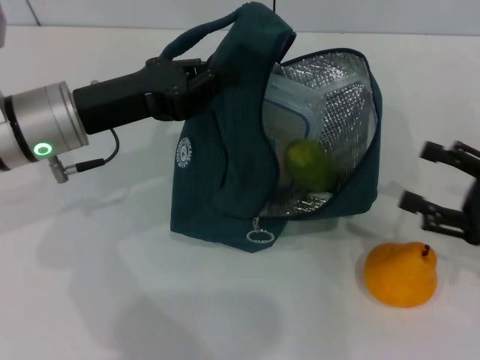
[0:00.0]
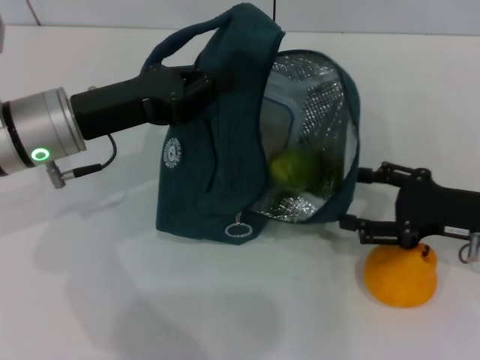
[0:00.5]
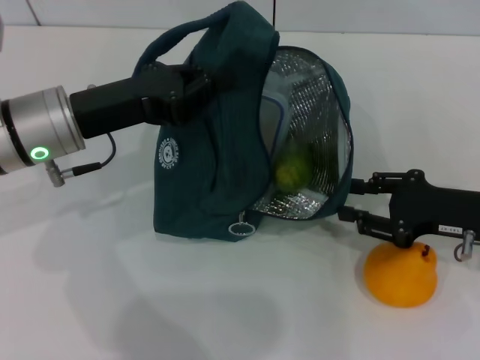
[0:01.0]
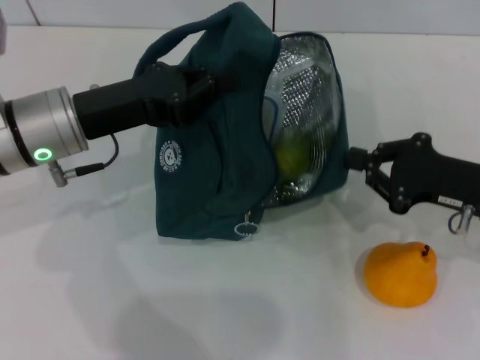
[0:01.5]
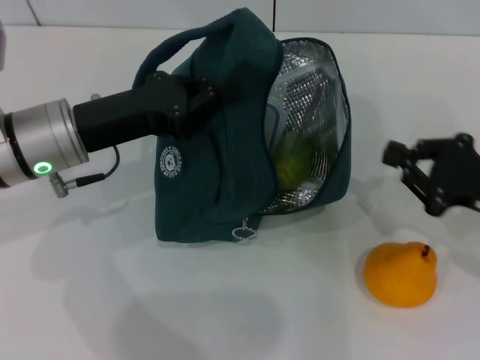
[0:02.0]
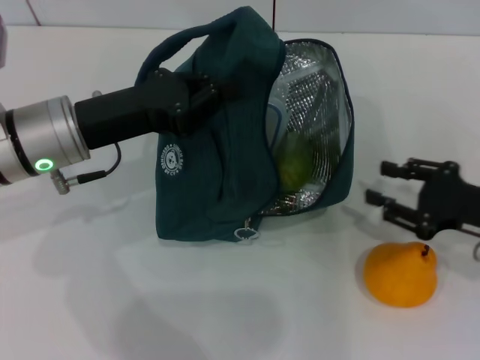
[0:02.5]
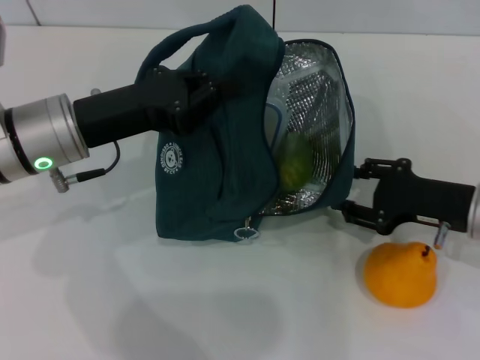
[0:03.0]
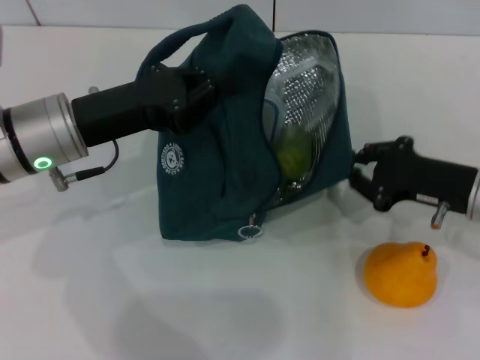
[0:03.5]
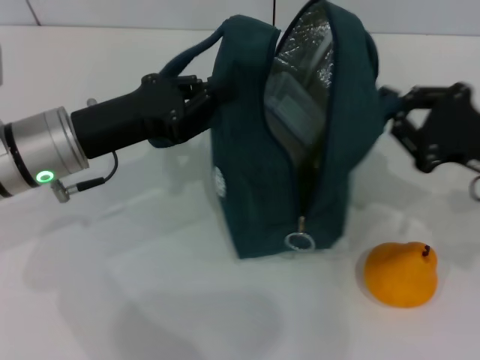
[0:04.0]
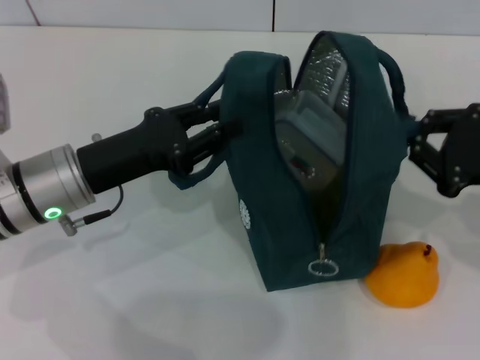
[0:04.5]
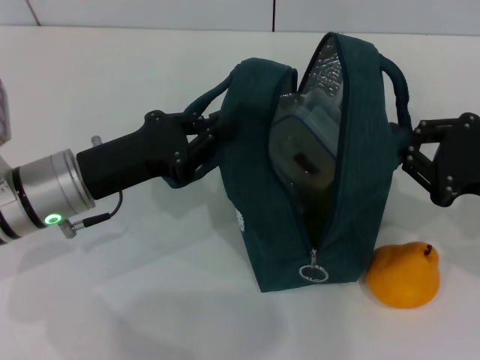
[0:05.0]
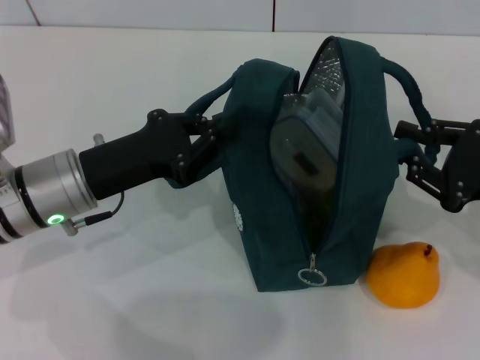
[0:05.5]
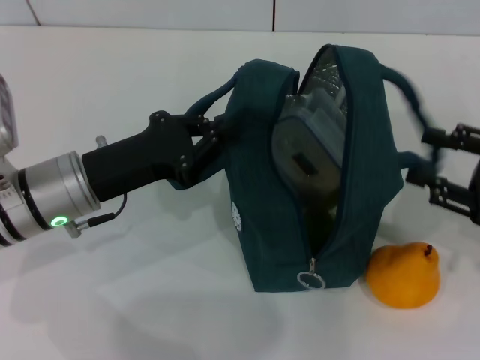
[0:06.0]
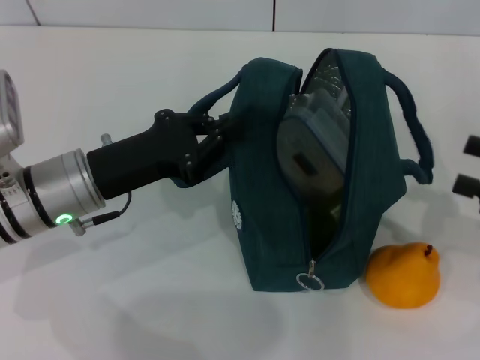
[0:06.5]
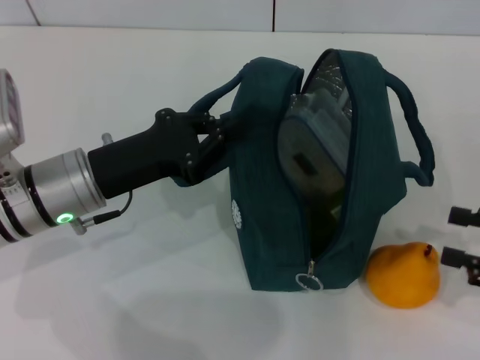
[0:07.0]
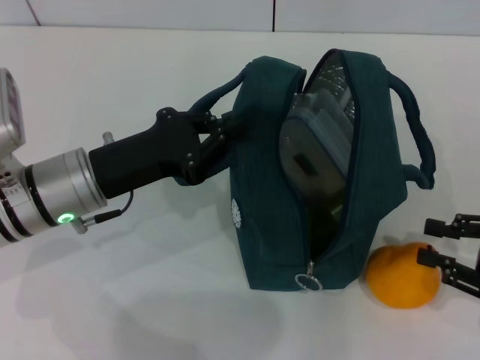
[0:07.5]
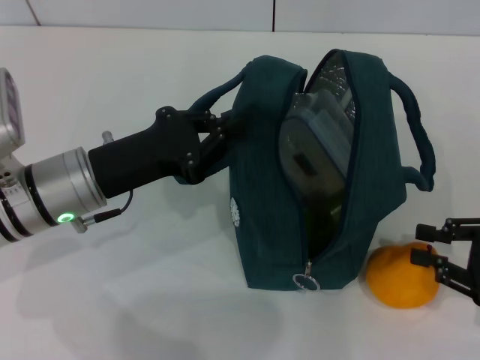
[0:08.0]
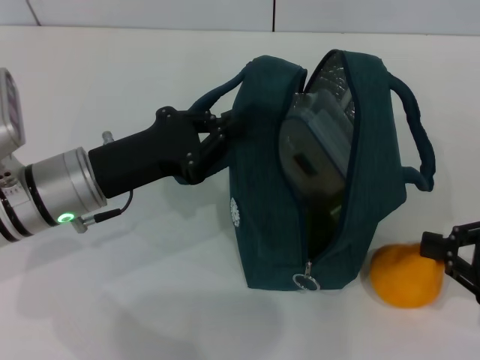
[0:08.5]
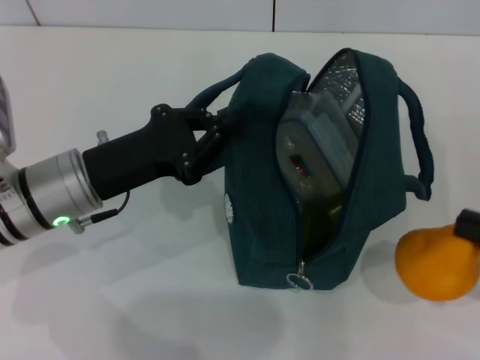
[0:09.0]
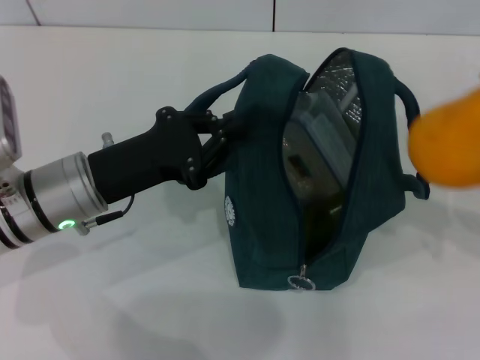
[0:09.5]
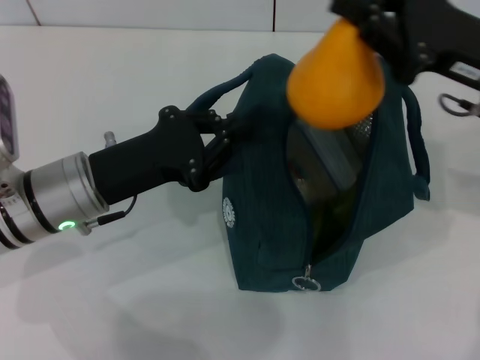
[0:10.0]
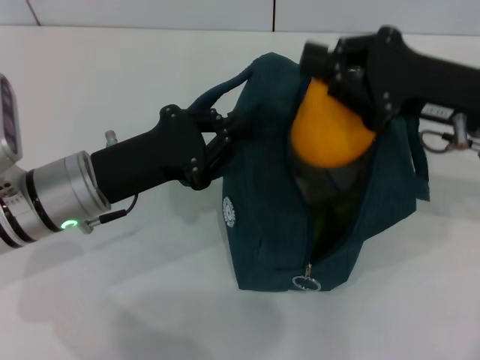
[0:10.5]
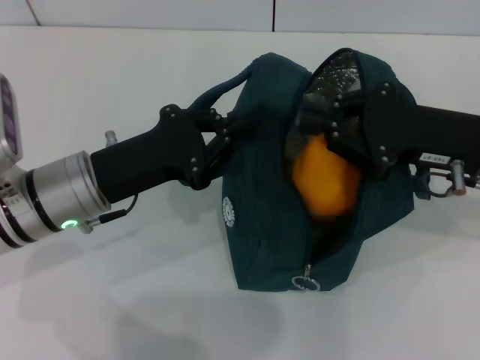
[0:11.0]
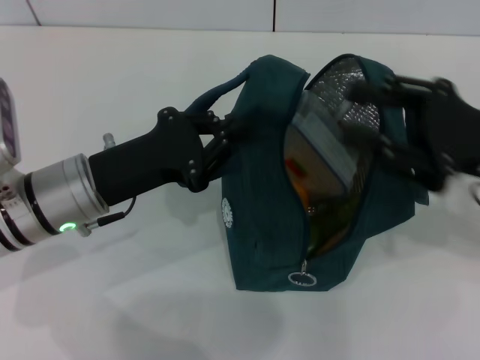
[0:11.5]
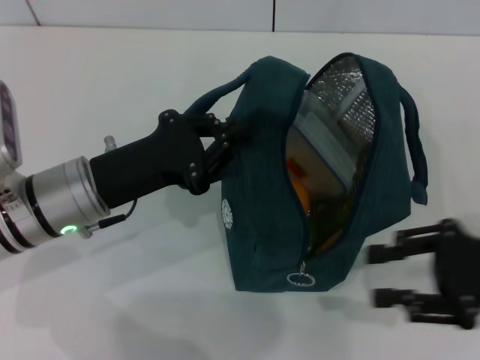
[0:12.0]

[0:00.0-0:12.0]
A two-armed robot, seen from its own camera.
Step, 0:00.0 to 0:08.0: Grab the pear with your right hand.
0:00.0 to 0:02.0: The right gripper closes up.
0:02.0 to 0:04.0: The right gripper opens, then closes once more.
0:04.0 to 0:06.0: The right gripper ends up about 5 cm from where it was, and opens its fingers.
0:06.0 to 0:08.0: The right gripper changes place by some 5 cm.
0:08.0 to 0:10.0: The right gripper heads upward, to the left and forward, covering about 20 cm.
0:10.0 to 0:12.0: The right gripper shifts roughly 15 cm backward, downward and to the right, and opens up.

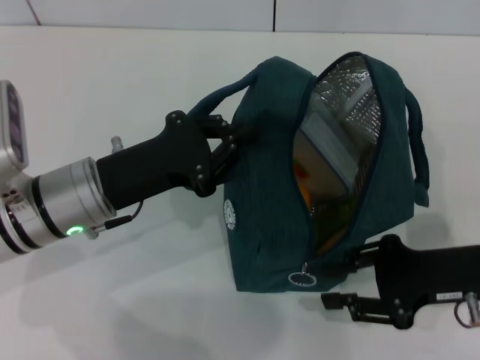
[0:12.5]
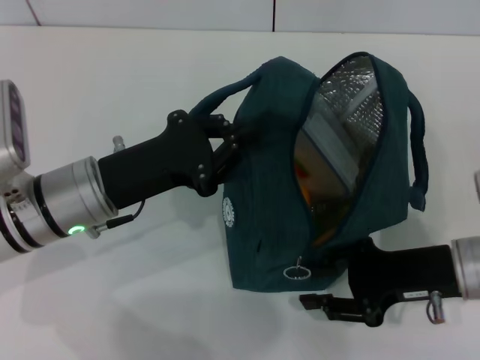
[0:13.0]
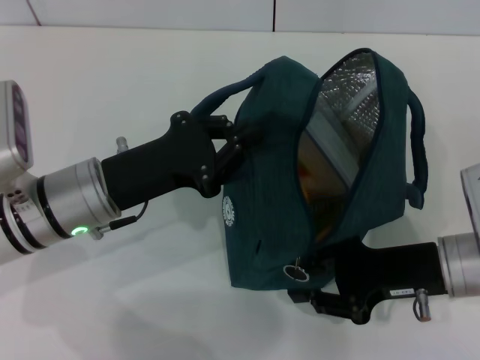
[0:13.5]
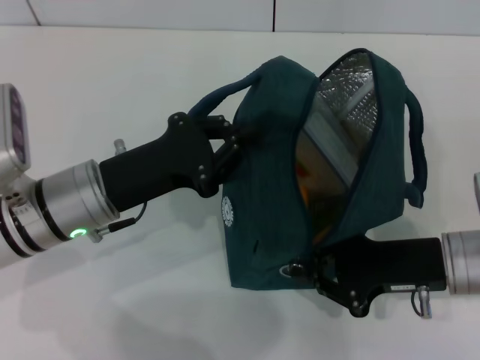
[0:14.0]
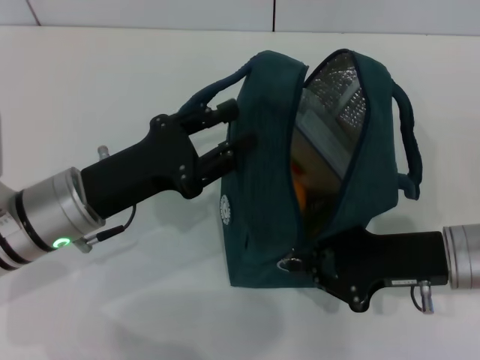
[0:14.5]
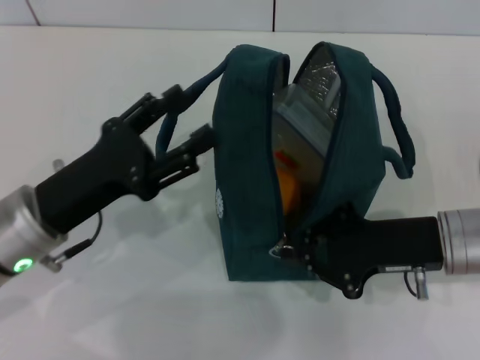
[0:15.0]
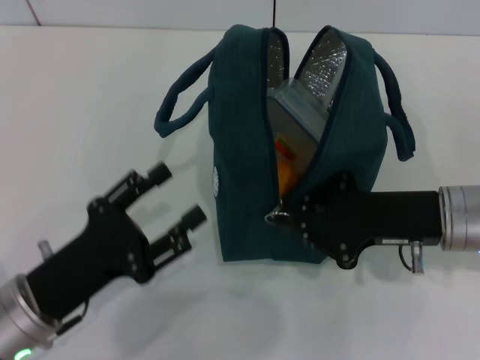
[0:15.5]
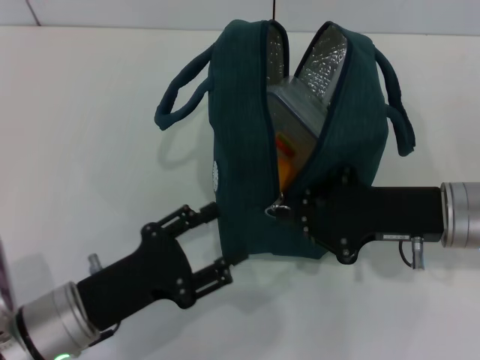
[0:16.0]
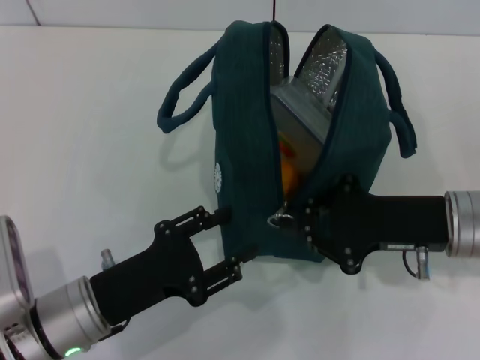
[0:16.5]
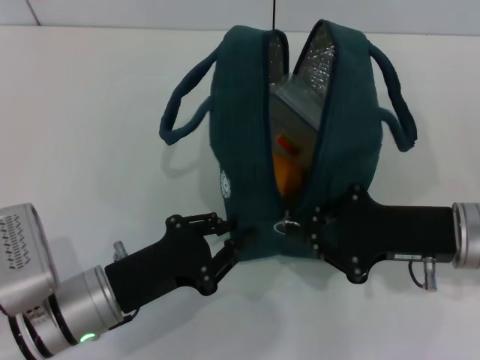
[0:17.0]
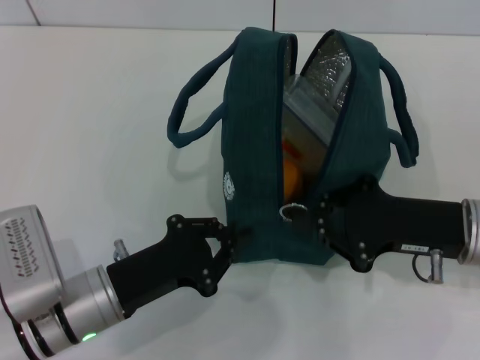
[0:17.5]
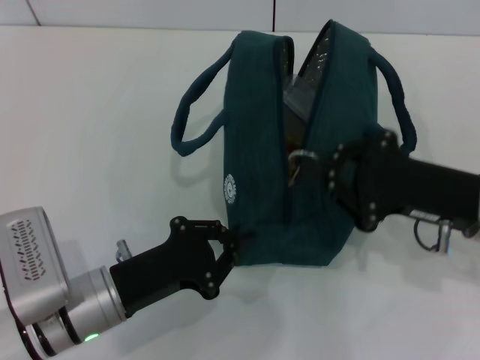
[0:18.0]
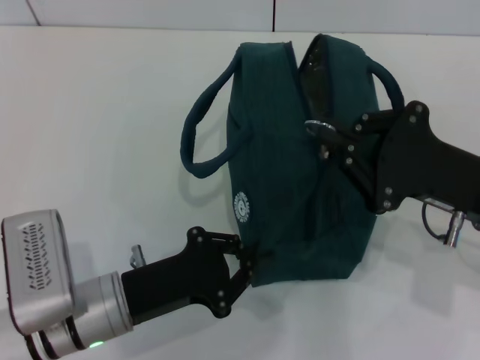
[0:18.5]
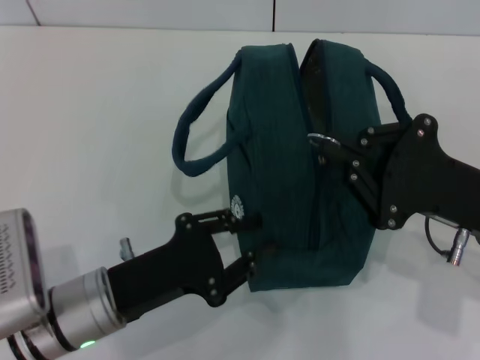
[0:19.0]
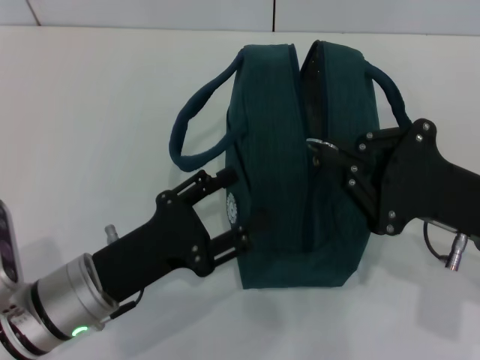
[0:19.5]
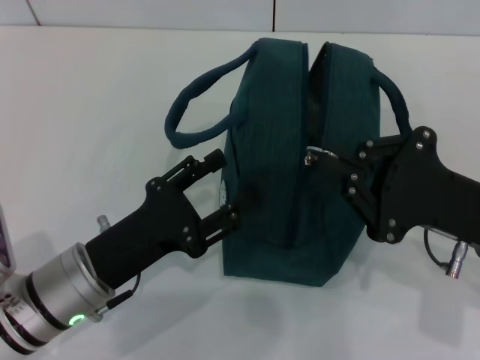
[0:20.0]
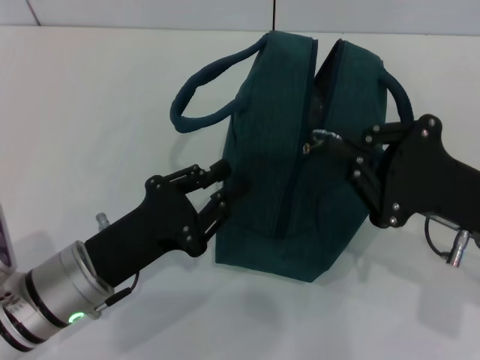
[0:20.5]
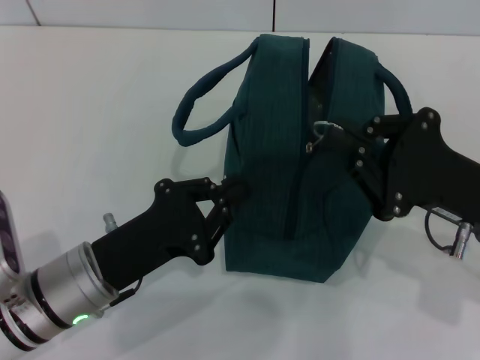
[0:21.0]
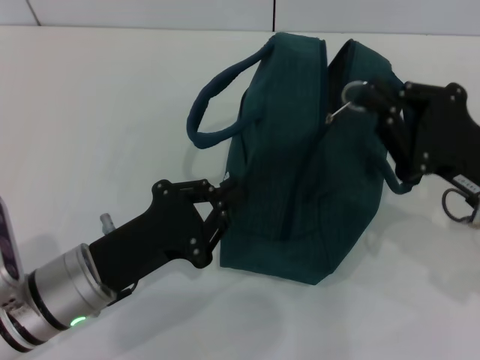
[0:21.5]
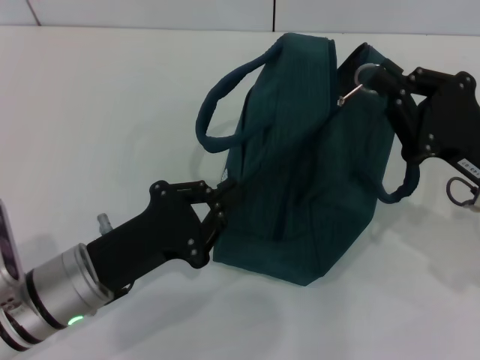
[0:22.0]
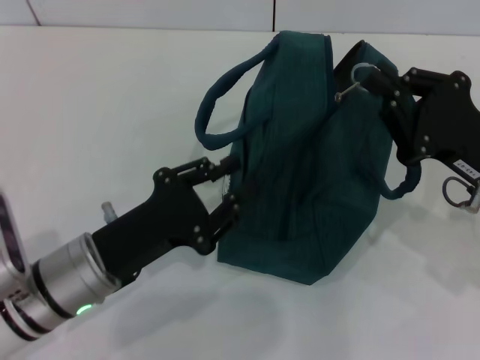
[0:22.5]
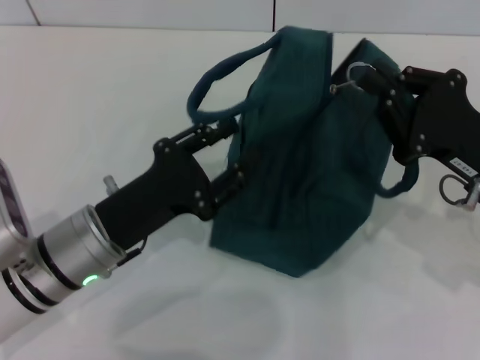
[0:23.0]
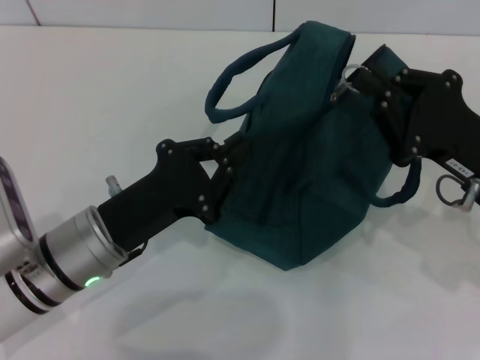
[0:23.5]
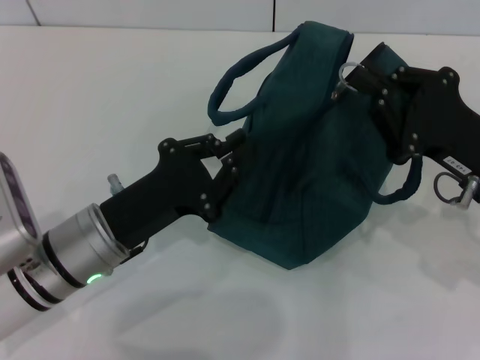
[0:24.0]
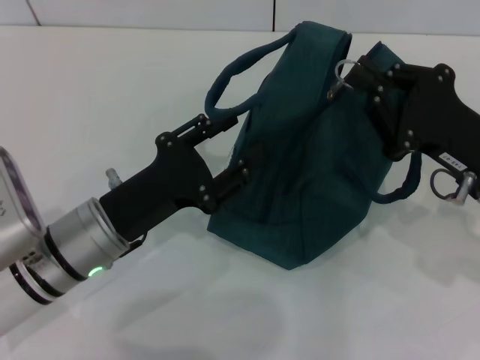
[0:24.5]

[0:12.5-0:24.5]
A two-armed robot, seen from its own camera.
Step, 0:12.5 to 0:14.5: Hold the lunch bag with your left hand.
0:12.5 to 0:14.5: The right gripper closes its fingers.
0:14.5 to 0:16.5: The left gripper shifts approximately 10 cm backward and downward, and opens its fingers.
0:16.5 to 0:18.5: The left gripper closes up.
0:18.5 to 0:20.5: The left gripper opens.
0:20.5 to 0:22.5: The grippers move only a little.

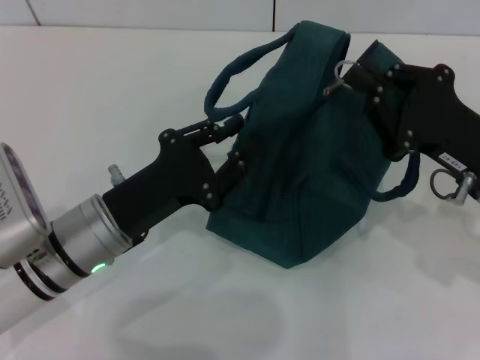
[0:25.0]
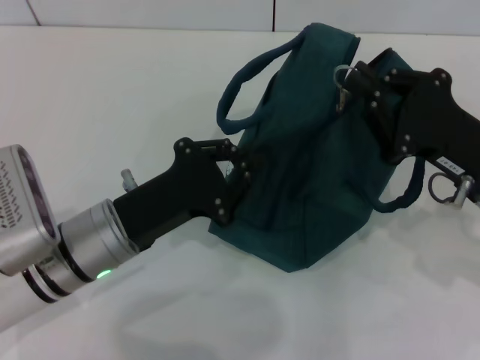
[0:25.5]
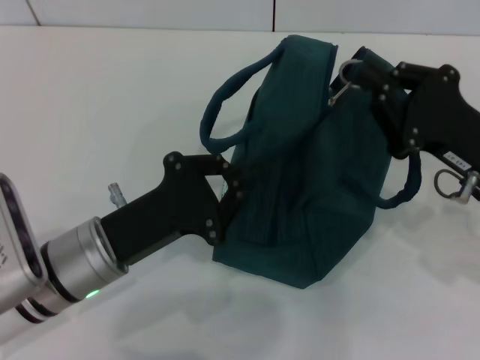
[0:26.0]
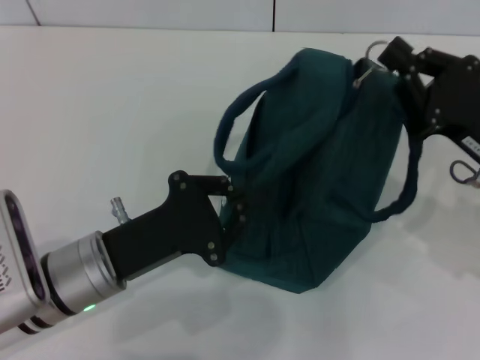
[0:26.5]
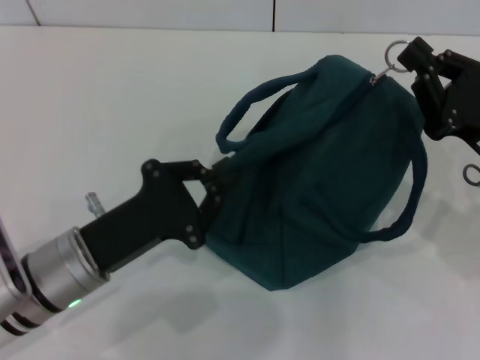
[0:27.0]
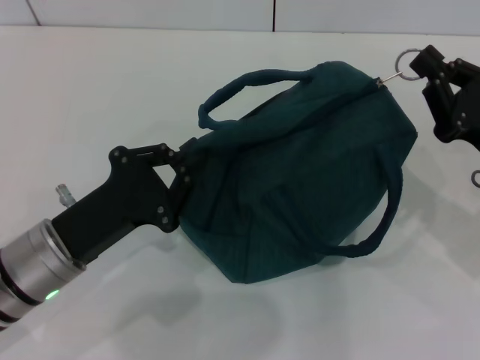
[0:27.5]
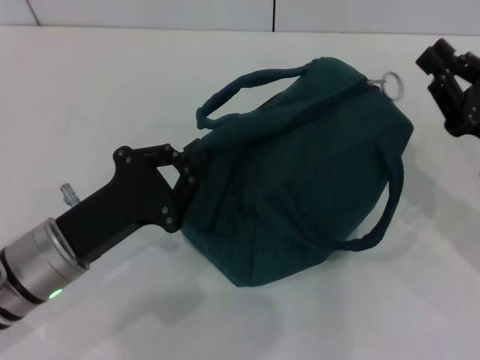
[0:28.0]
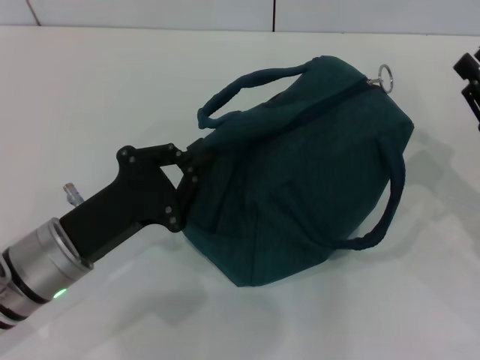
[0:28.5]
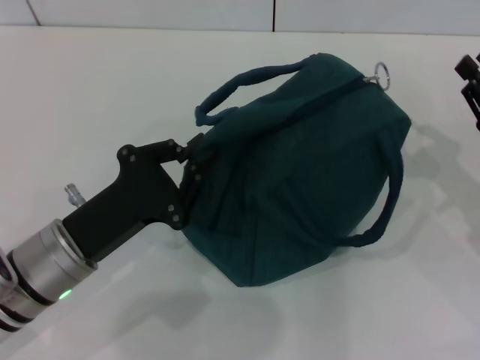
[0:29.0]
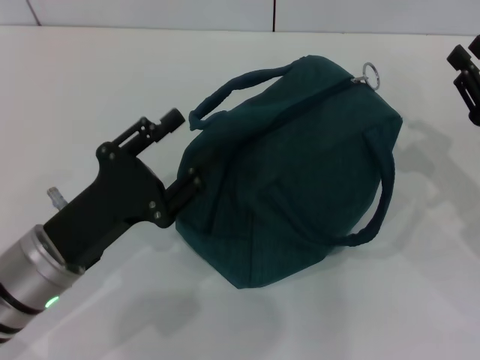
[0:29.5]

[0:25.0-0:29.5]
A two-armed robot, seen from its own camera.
0:25.0 to 0:27.0: The left gripper closes its fingers.
0:27.0 to 0:29.5: The left gripper opens. The right gripper opens.
